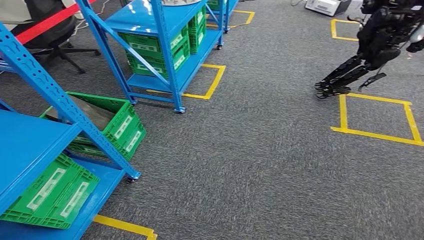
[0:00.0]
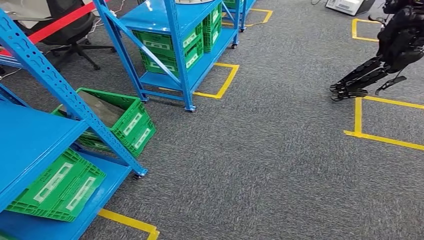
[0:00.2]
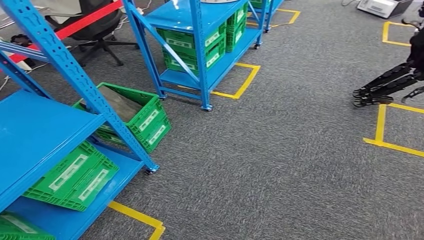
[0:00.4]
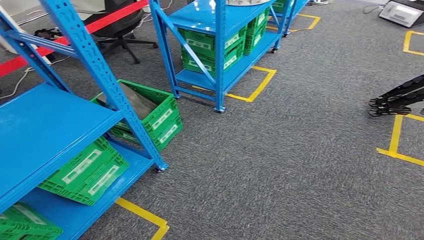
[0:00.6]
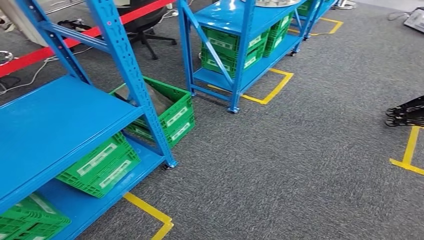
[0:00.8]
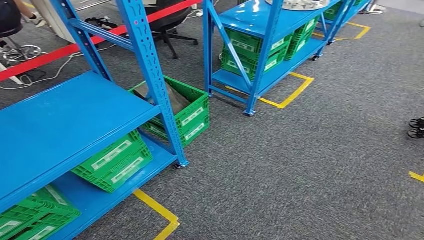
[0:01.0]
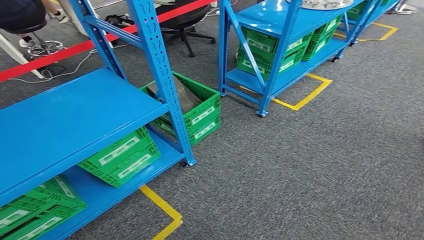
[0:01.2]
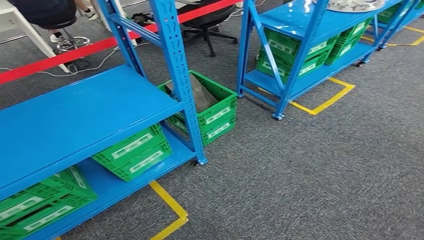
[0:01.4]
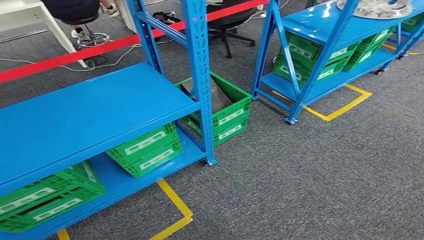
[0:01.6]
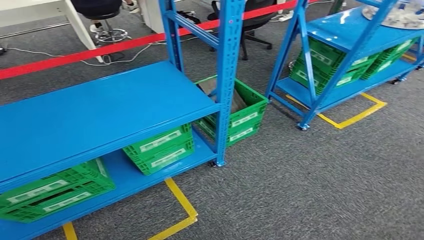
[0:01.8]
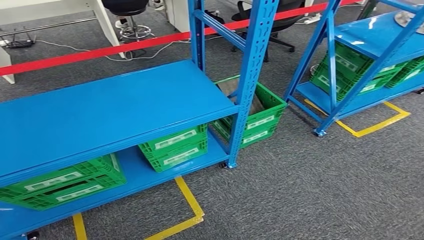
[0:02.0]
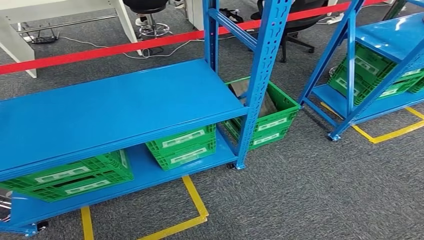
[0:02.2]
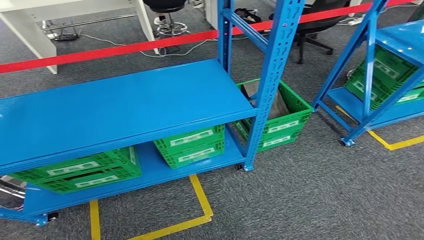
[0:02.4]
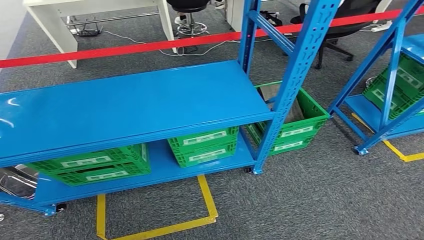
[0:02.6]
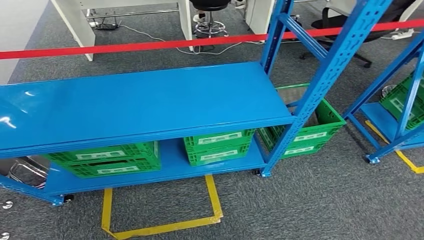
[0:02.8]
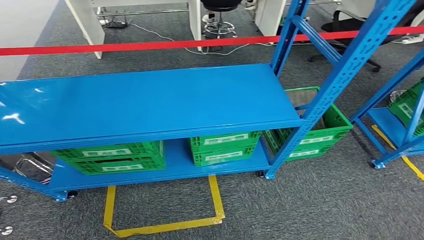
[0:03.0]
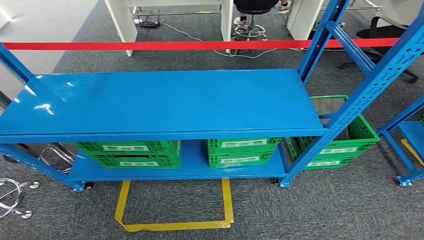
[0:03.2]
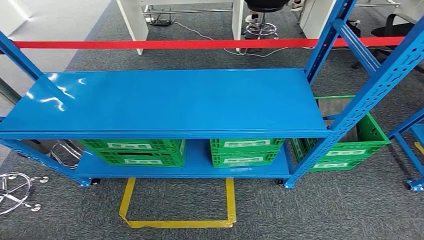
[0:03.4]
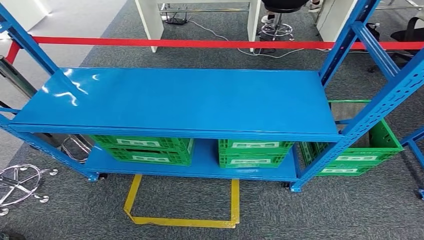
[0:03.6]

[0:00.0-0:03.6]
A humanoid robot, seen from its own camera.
Step, 0:00.0 to 0:03.6: Move to the initial position of the workbench.
